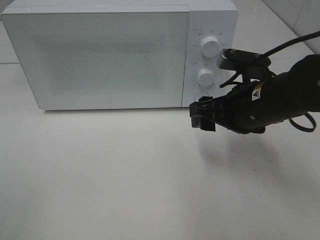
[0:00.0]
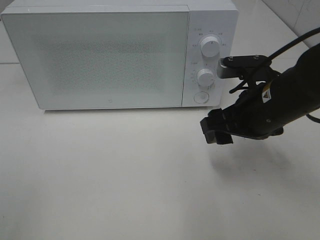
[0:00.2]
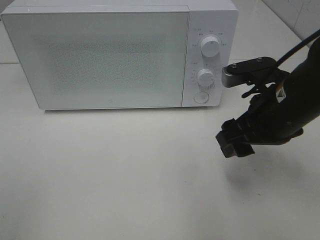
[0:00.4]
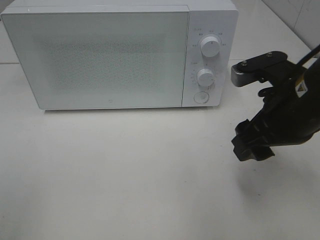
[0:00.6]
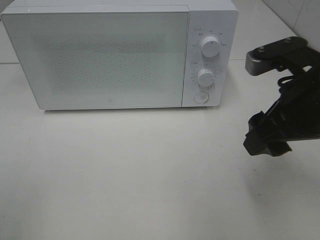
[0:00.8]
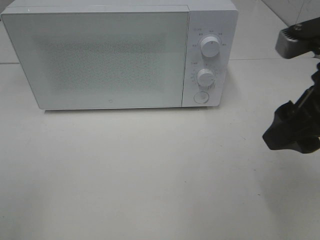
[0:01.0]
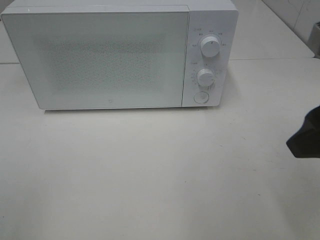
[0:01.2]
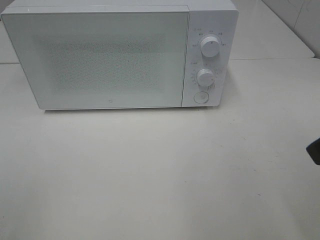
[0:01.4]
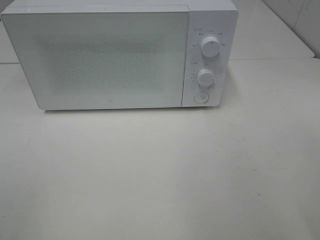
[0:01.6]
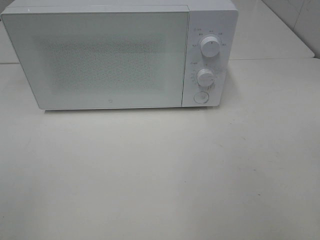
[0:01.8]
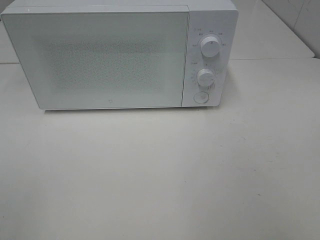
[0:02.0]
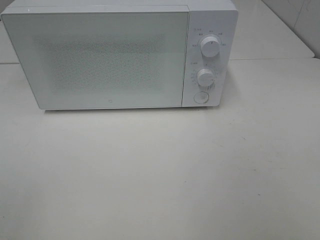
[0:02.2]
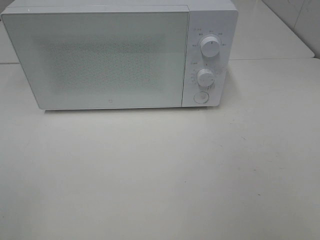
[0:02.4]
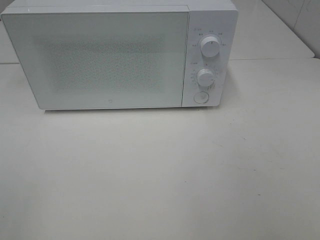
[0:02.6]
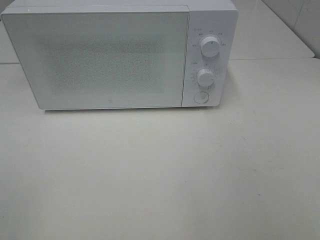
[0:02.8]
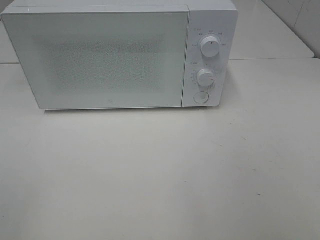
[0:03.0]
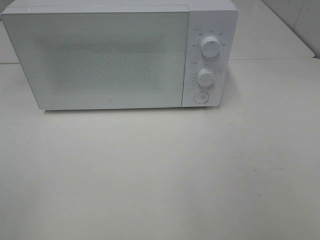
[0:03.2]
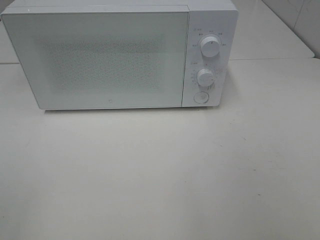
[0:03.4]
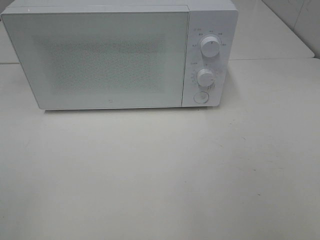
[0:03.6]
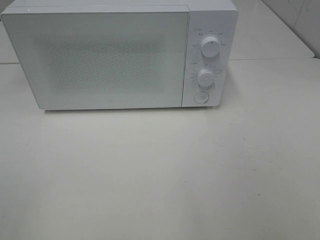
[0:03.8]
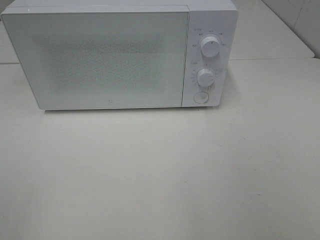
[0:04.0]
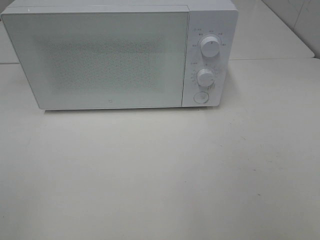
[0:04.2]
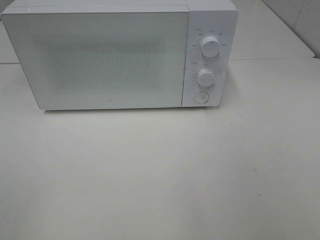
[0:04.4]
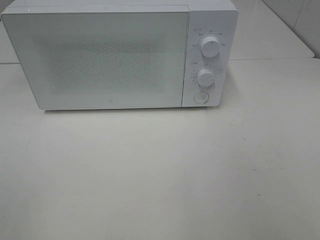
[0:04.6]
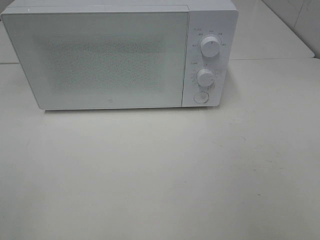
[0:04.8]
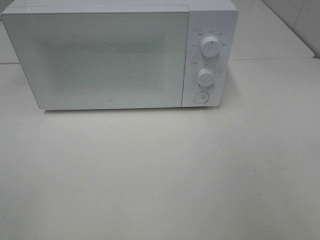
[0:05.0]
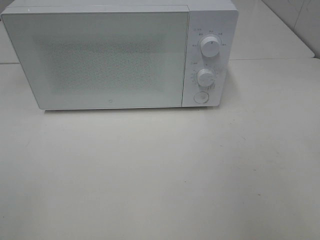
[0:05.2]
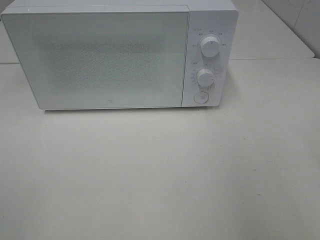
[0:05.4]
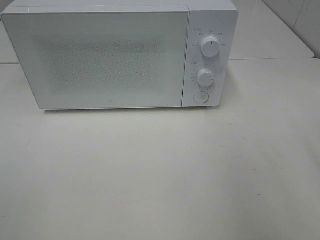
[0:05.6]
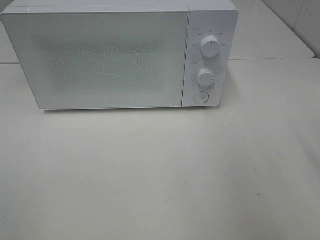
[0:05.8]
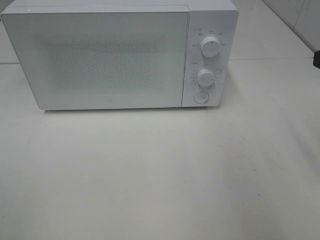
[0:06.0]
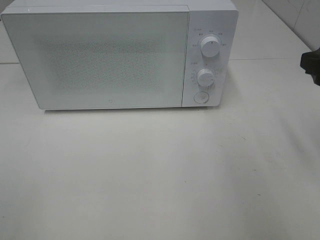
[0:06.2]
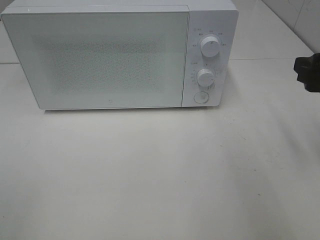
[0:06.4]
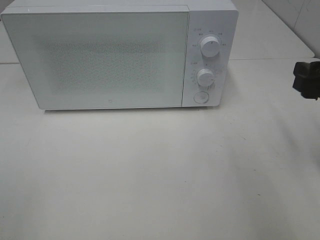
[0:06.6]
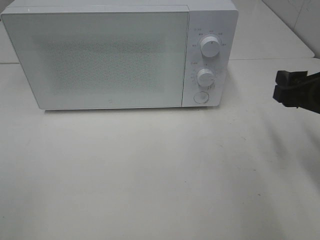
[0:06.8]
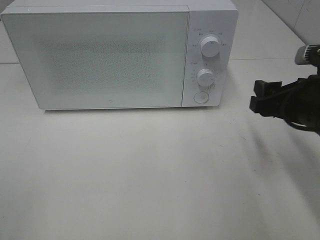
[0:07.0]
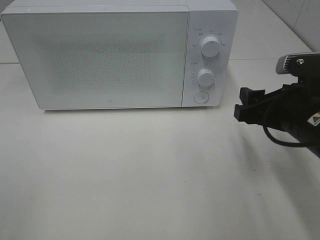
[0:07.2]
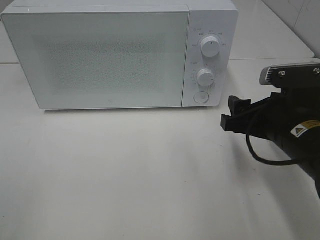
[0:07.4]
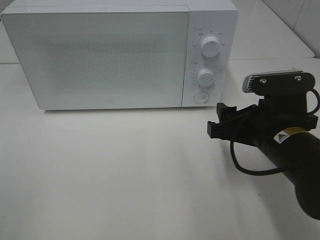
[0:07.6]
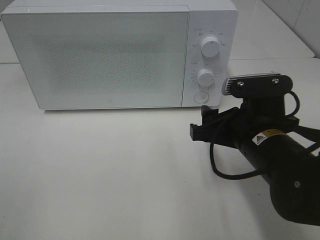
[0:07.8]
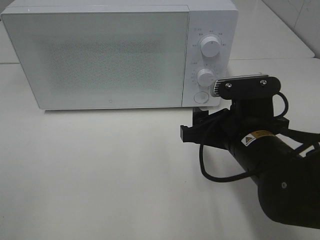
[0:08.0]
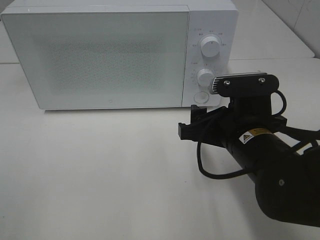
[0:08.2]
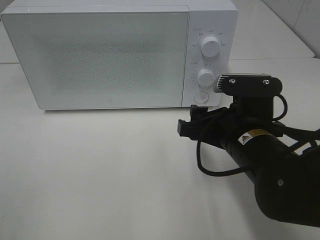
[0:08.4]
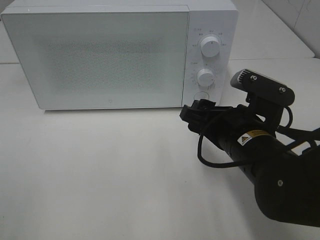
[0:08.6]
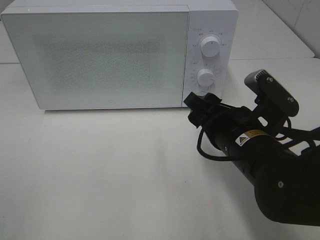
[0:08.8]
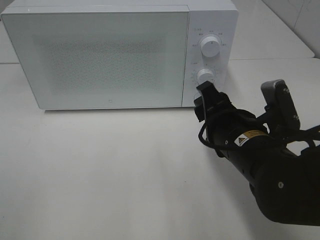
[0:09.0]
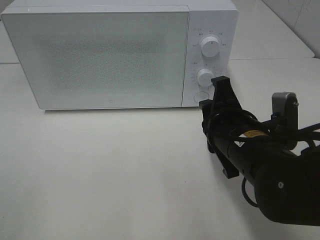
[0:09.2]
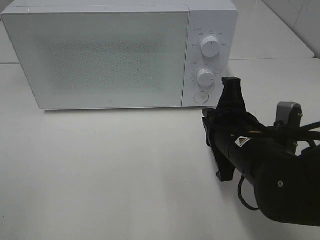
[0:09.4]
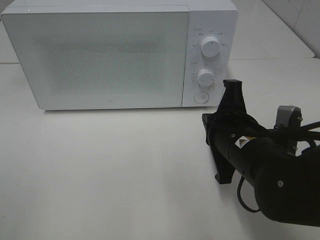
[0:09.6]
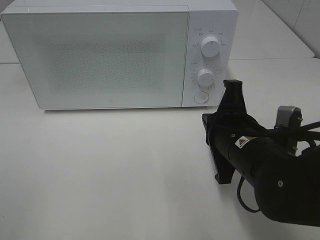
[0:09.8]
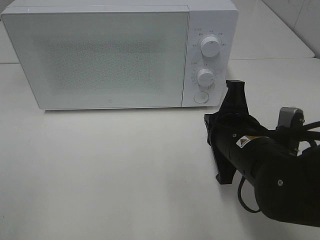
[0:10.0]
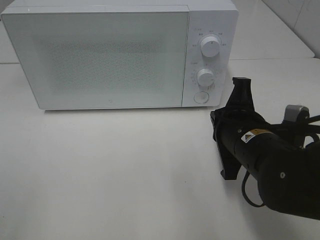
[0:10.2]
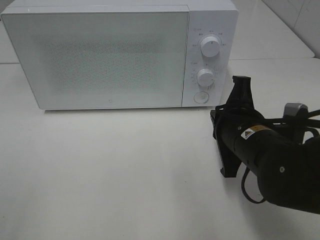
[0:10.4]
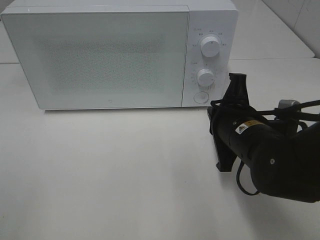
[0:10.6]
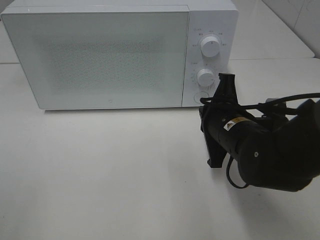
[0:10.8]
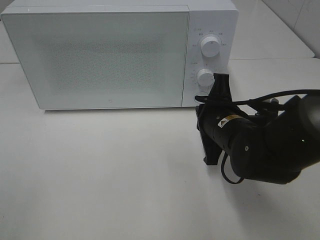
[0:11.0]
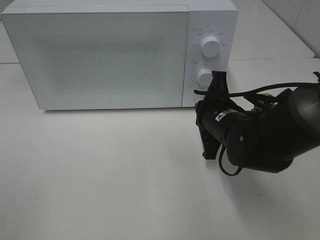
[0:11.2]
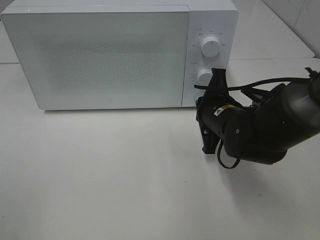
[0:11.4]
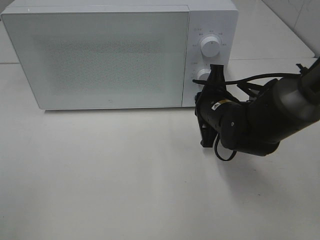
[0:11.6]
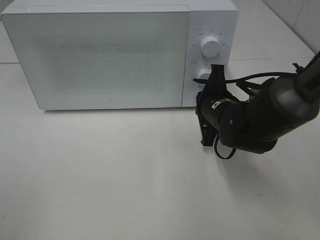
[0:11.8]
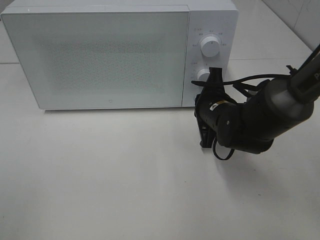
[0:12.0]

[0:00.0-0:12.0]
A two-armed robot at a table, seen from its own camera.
Task of the whole recording: Heat Sandwich.
0:00.0 to 0:01.6: The right gripper shifts approximately 25 cm backward, upward and to the right.
0:03.0 to 0:04.4: The two grippers keep their place.
0:06.0 to 0:07.6: The right gripper is displaced downward and to the left by about 15 cm.
0:09.0 to 0:10.4: The right gripper closes its fingers.
0:10.4 to 0:12.0: The right gripper travels forward by about 10 cm.

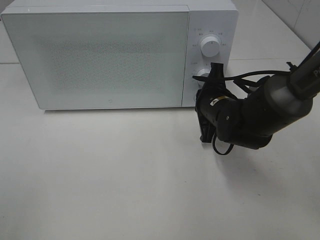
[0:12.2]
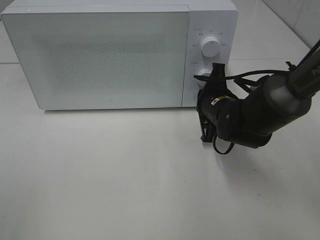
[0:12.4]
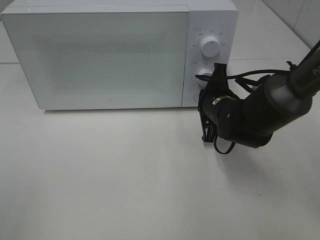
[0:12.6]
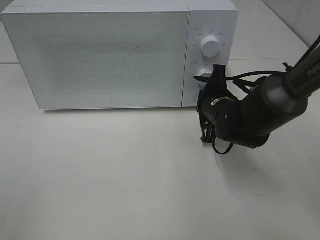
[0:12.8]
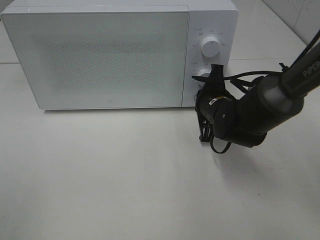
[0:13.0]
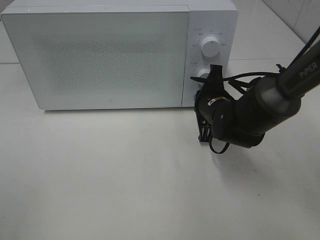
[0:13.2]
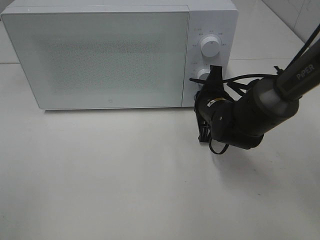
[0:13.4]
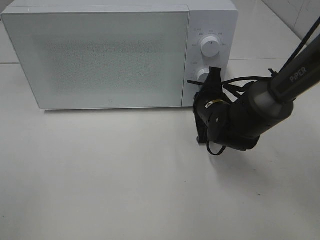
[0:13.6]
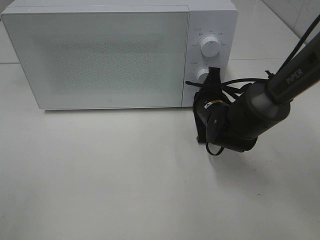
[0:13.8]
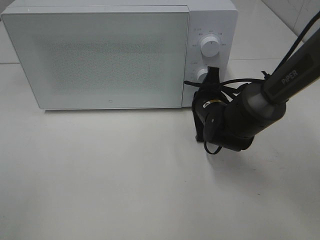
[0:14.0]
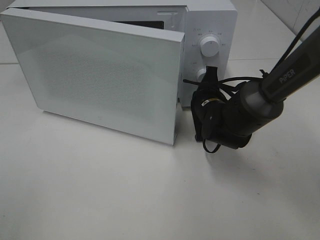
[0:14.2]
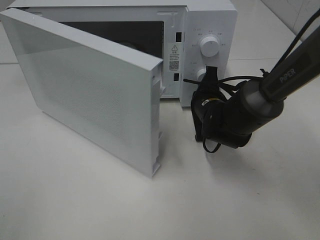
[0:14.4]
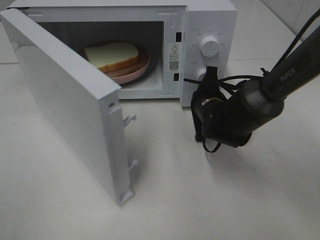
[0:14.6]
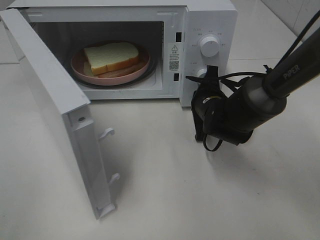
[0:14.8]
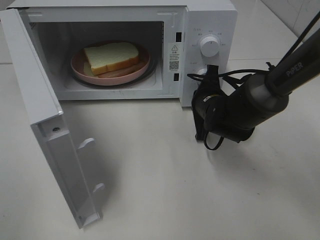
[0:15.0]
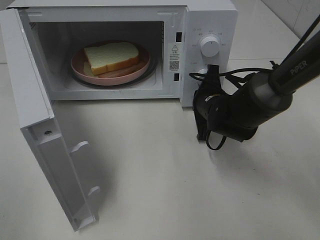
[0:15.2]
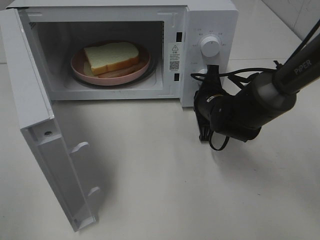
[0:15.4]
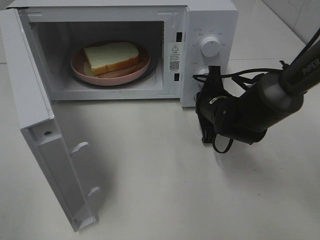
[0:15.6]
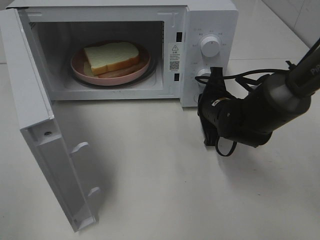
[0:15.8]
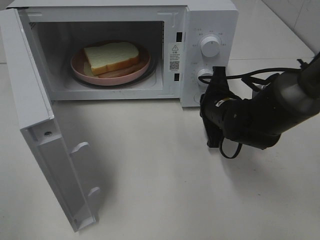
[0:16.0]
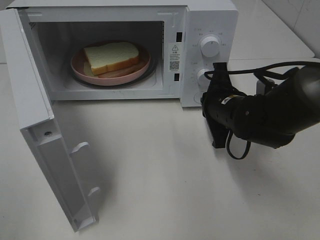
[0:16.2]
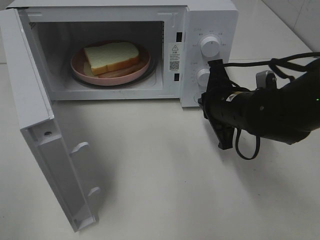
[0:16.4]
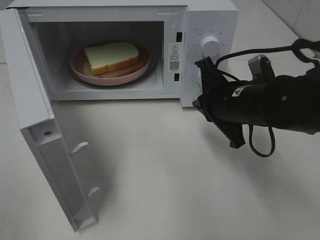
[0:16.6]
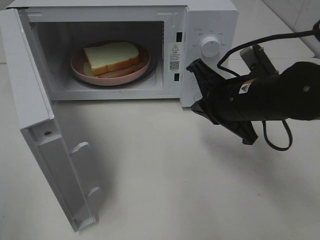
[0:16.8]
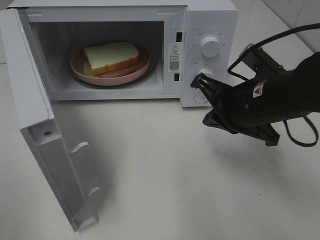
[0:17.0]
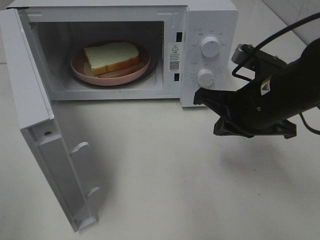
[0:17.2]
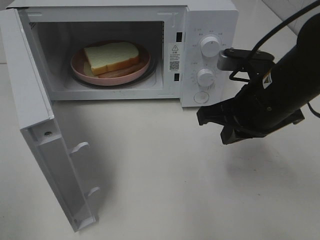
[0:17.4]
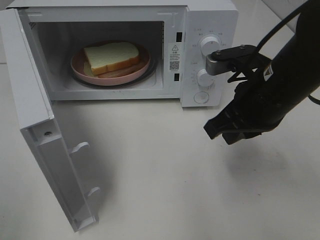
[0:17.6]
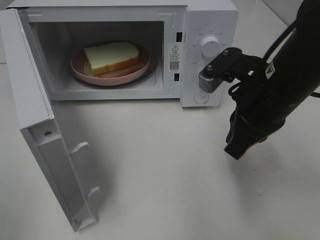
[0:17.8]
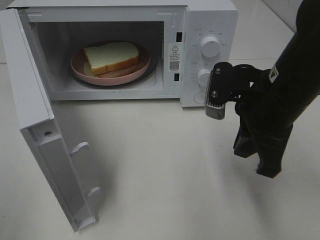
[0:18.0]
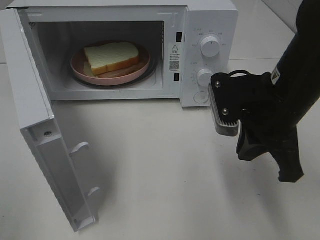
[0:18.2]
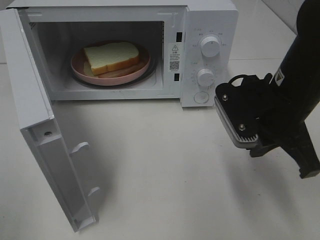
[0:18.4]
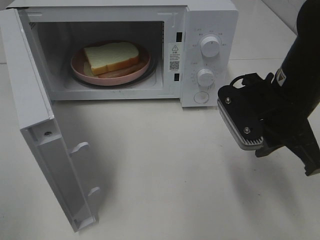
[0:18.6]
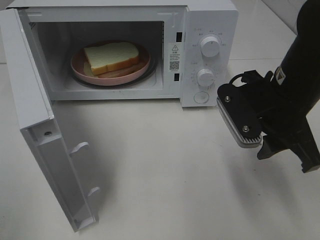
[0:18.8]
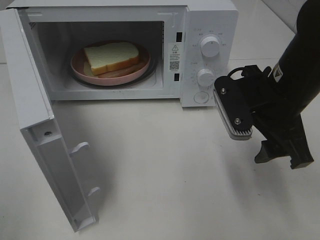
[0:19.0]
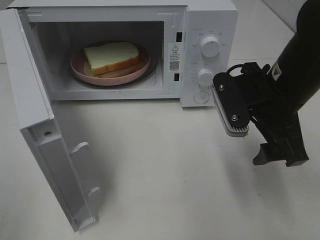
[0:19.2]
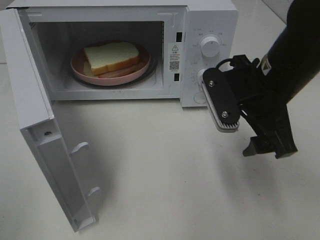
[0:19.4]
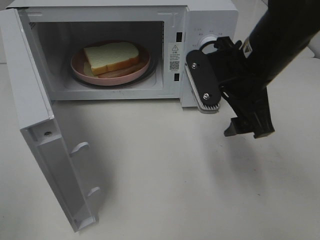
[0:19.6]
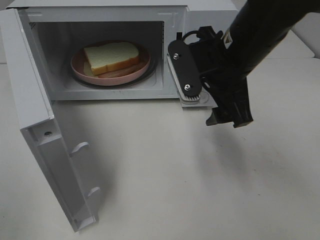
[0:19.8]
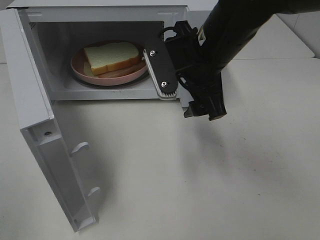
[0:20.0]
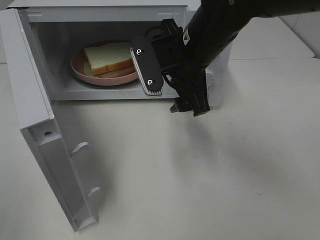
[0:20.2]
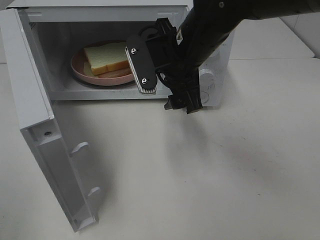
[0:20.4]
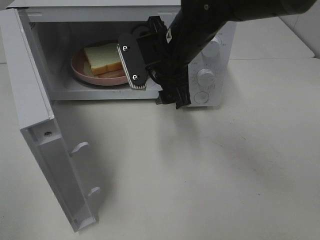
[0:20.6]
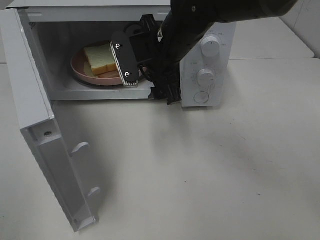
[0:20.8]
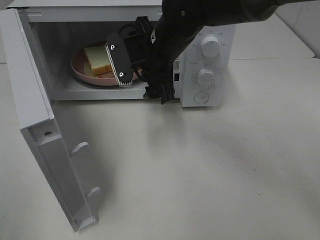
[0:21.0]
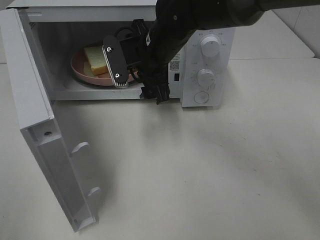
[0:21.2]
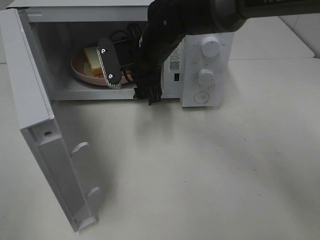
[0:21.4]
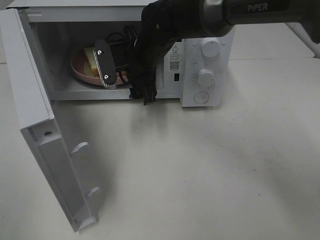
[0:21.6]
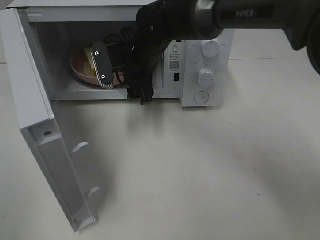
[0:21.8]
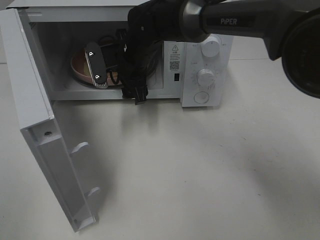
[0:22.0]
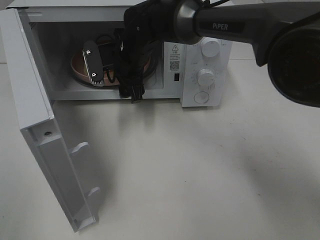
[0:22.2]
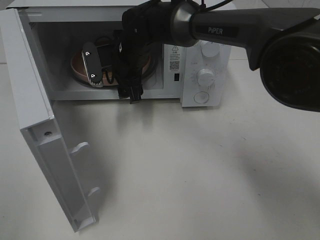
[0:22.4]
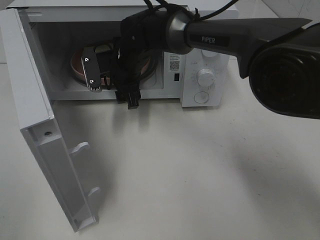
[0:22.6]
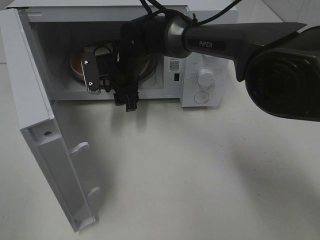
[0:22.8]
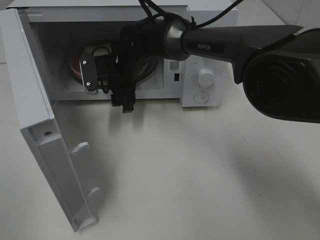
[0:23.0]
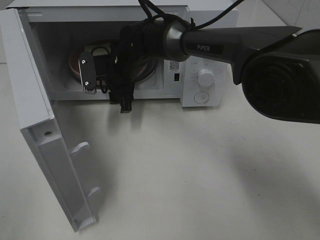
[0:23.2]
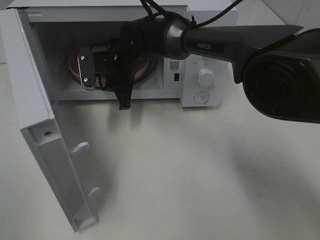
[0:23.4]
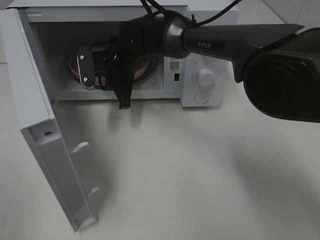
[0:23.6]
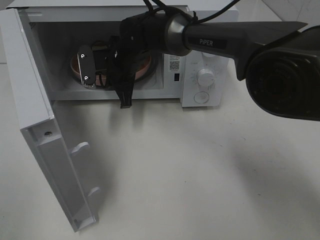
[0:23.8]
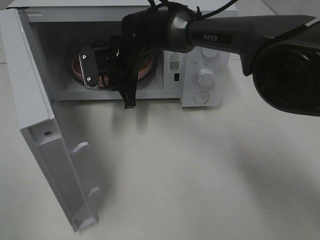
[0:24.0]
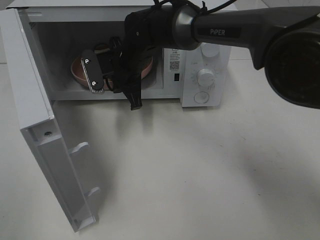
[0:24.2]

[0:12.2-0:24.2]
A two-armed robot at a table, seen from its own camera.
Task of the whole recording: Heat Sandwich.
Step, 0:12.2 to 0:16.8: Right hand: press the switch.
Step, 0:17.0 to 0:23.4: Right hand: grab the plate with the sandwich.
0:12.2 to 0:13.8: The grippers stay close to where they were, moving slightly.
0:15.2 to 0:16.6: The right gripper heads backward and upward, covering roughly 10 cm.
0:16.6 to 0:18.2: The right gripper heads upward, covering some 5 cm.
0:18.2 to 0:19.8: The right gripper goes about 10 cm to the left and forward, and opens up.
0:19.8 to 0:21.2: The right gripper moves to the left and forward, some 15 cm.
0:21.2 to 0:22.6: The right gripper goes some 10 cm forward, downward and to the left.
0:22.6 to 0:24.2: The right gripper closes up.
